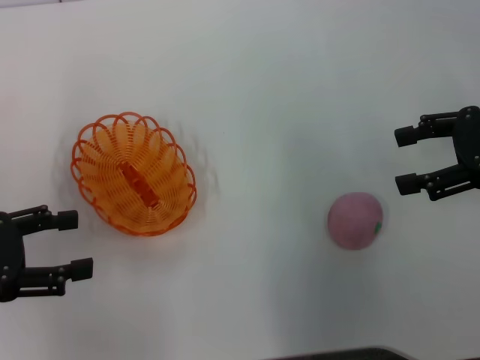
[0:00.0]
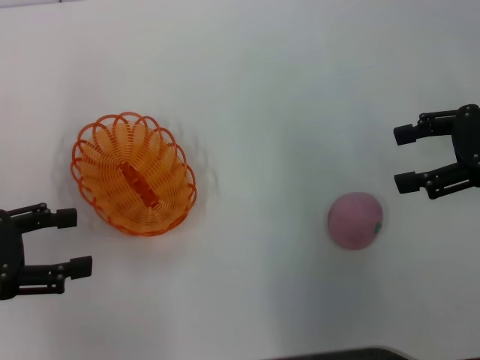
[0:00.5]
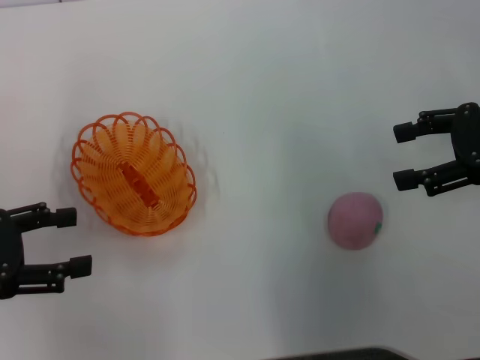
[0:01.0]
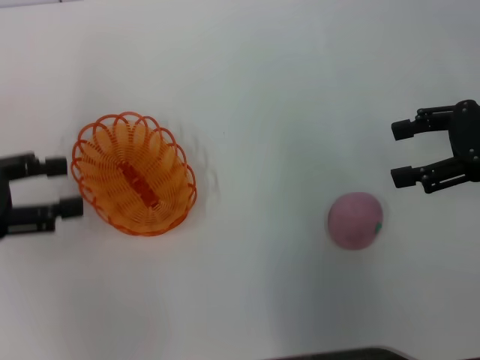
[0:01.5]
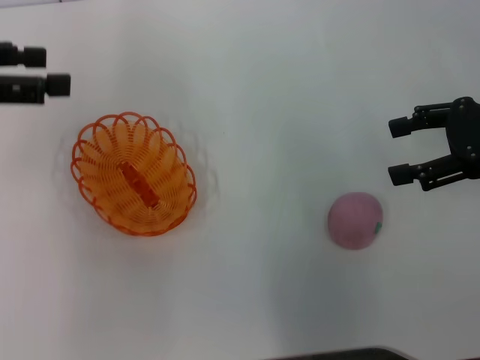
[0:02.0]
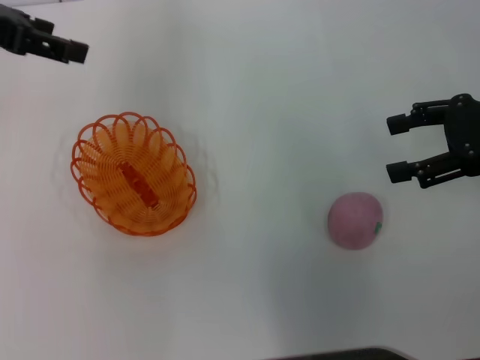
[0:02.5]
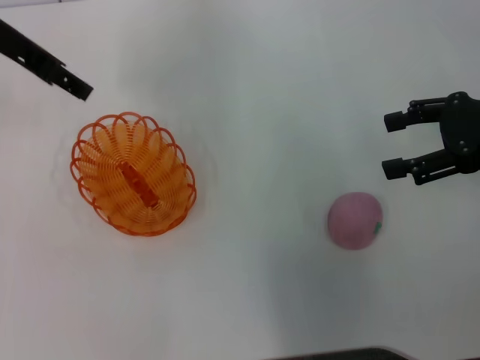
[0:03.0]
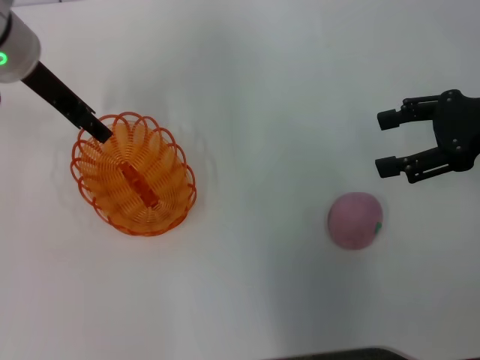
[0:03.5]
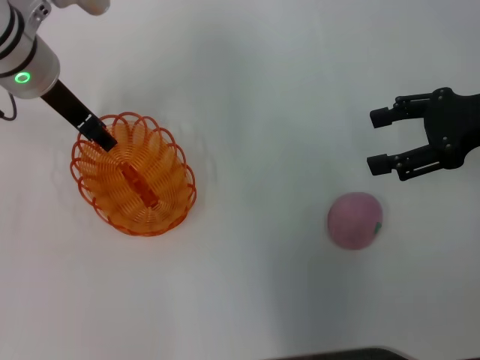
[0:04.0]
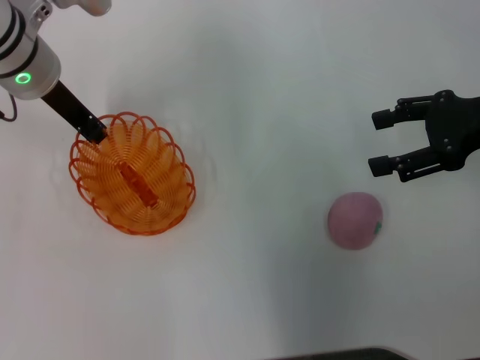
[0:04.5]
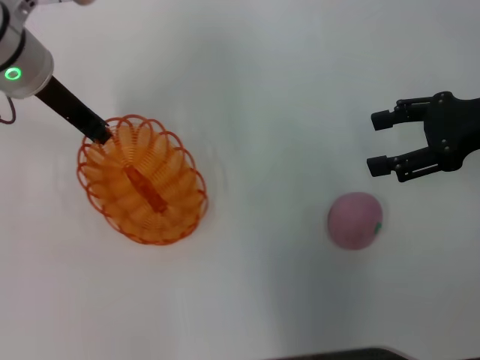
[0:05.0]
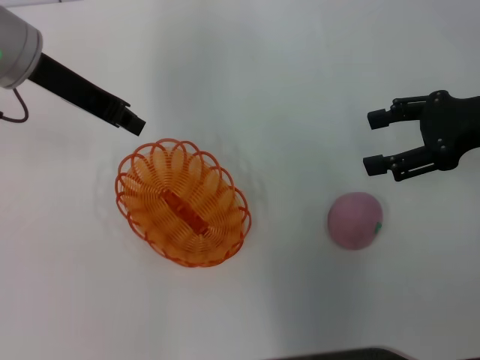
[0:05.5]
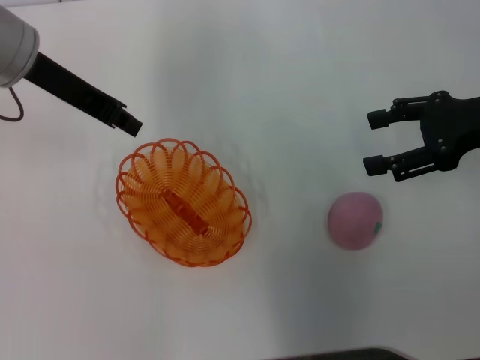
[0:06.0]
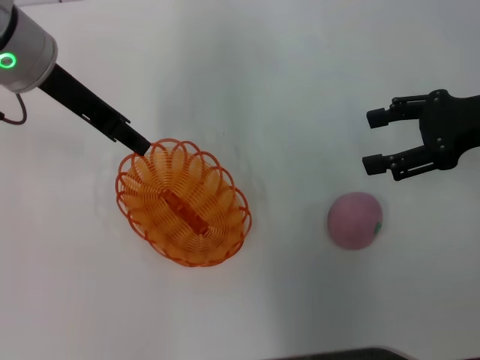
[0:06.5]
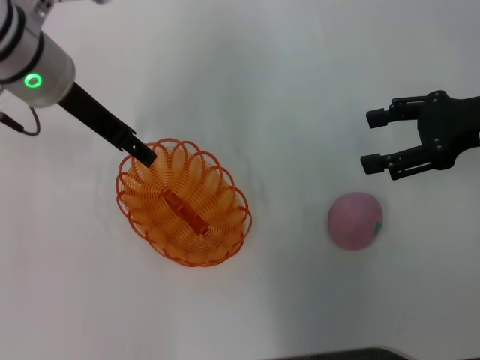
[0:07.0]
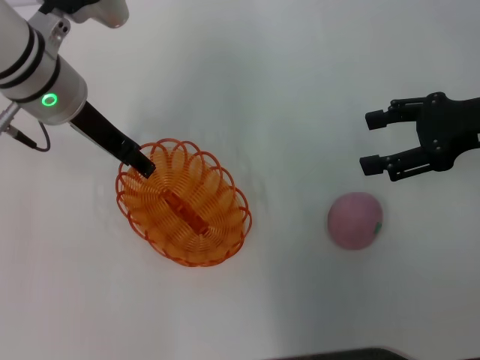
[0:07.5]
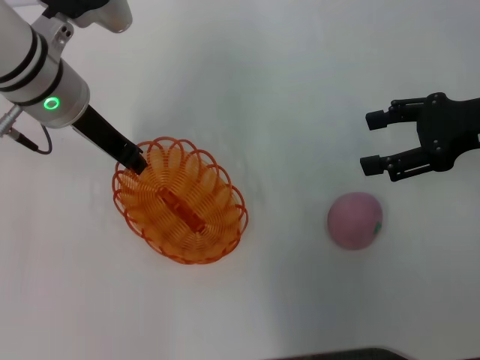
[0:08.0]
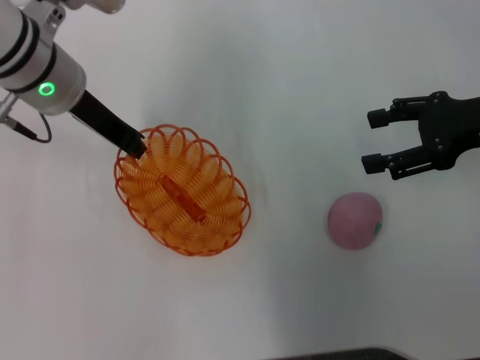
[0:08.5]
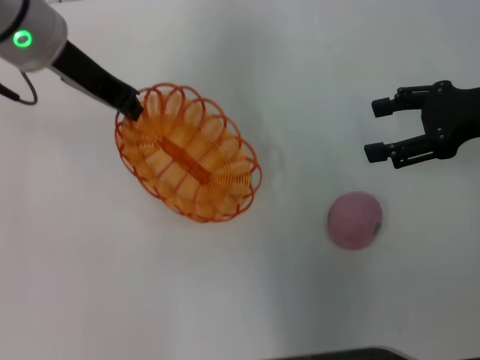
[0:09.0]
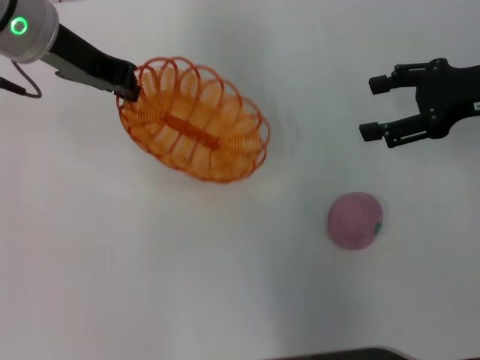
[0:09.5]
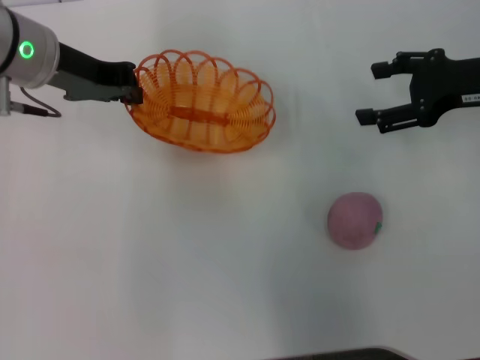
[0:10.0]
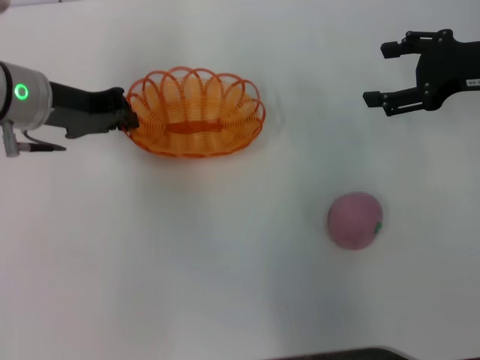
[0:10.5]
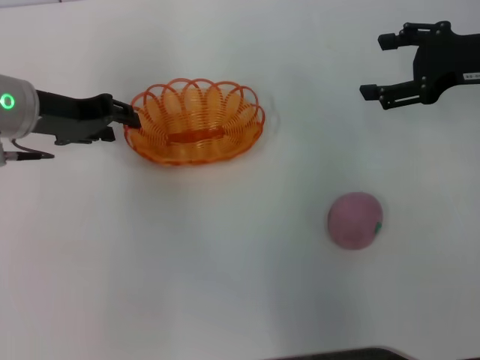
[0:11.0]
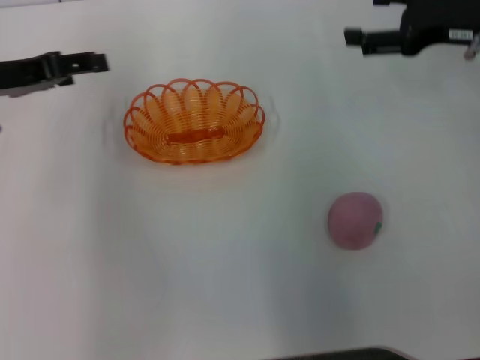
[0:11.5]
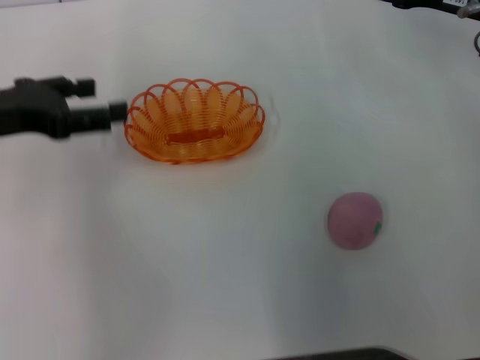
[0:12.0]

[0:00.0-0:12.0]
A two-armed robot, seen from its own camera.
Step, 0:00.0 to 0:08.5: Pick up the basket with the left gripper.
Step, 0:09.0 to 0:11.0: Place the basket in the center of view with the left gripper.
0:00.0 to 0:02.0: The left gripper shifts some 15 cm upward and forward.
0:02.0 to 0:04.0: The left gripper is displaced to the right, forward and downward by about 20 cm.
0:04.0 to 0:06.0: The left gripper moves some 5 cm, and closes its fingers.
0:06.0 to 0:08.0: The left gripper travels downward by some 5 cm, and opens its fingers.
0:08.0 to 0:10.0: The left gripper closes.
0:10.0 to 0:12.0: The left gripper moves to the left and backward, roughly 10 cm, and opens up.

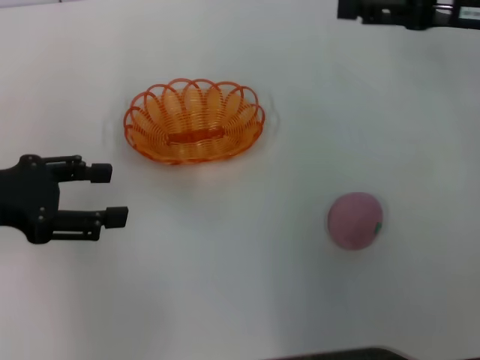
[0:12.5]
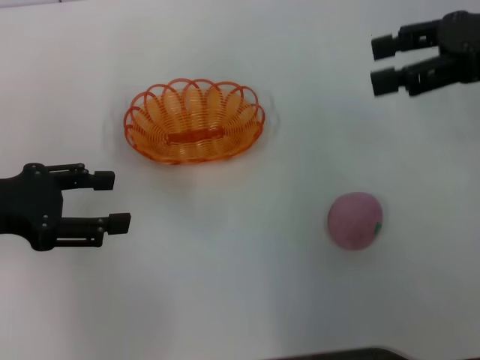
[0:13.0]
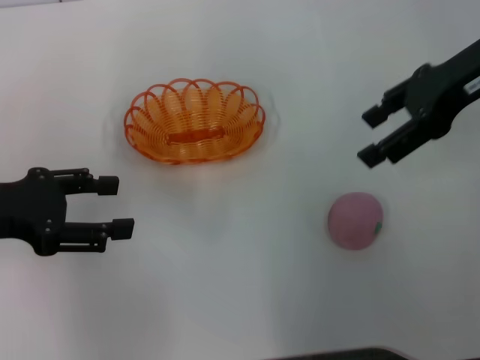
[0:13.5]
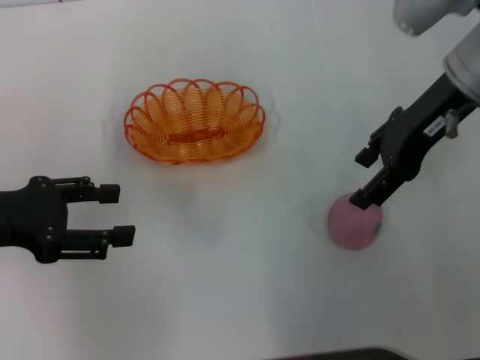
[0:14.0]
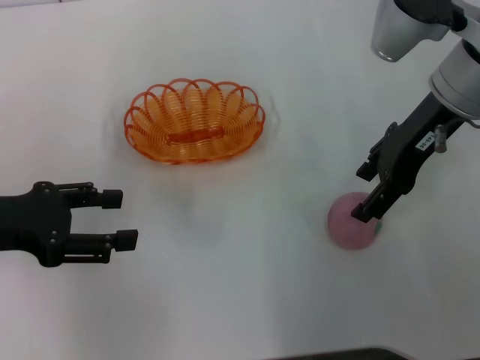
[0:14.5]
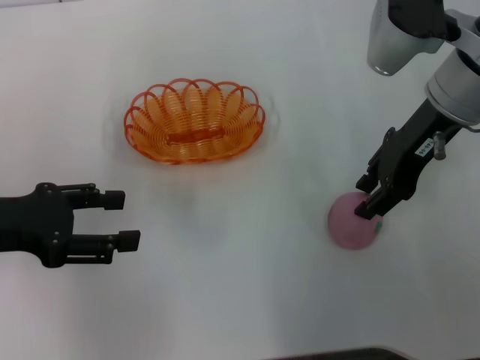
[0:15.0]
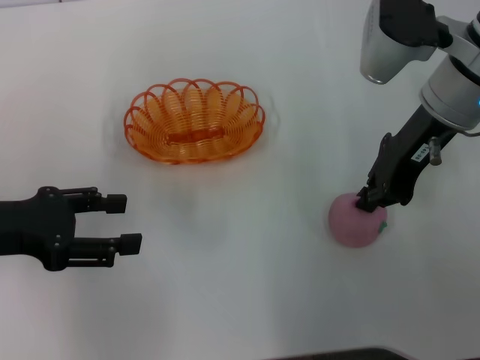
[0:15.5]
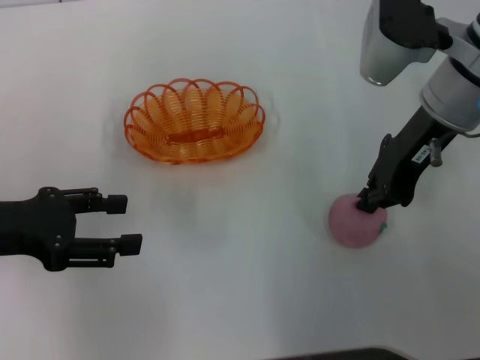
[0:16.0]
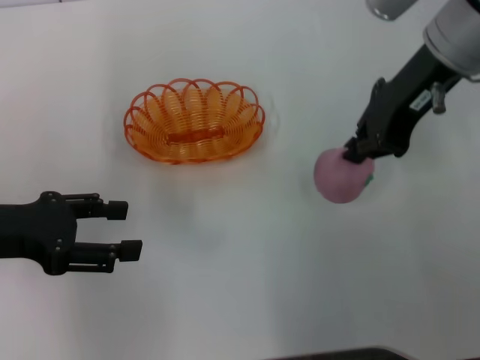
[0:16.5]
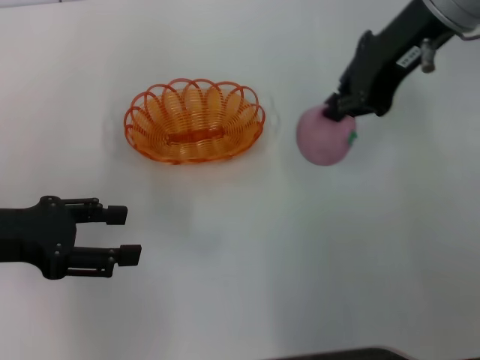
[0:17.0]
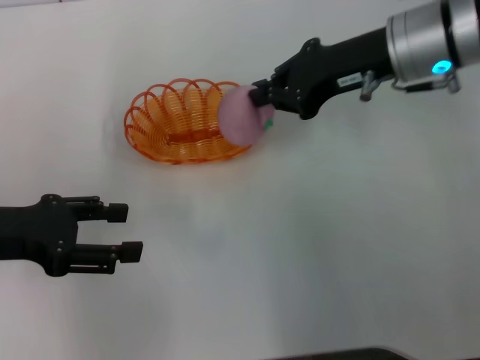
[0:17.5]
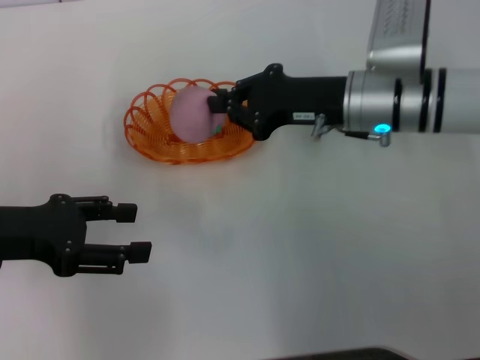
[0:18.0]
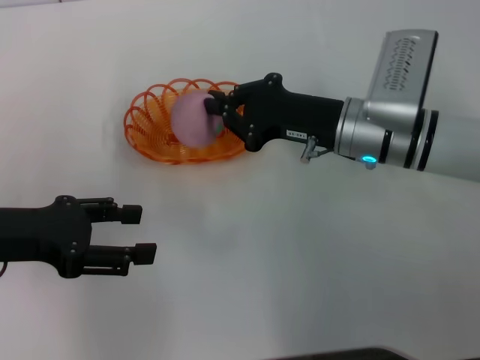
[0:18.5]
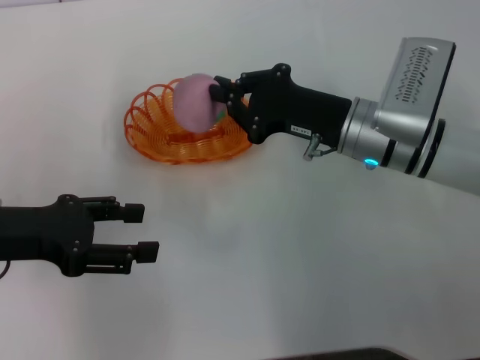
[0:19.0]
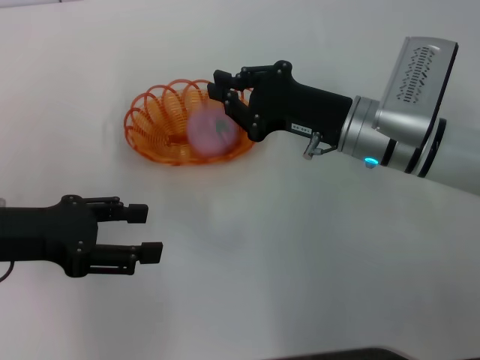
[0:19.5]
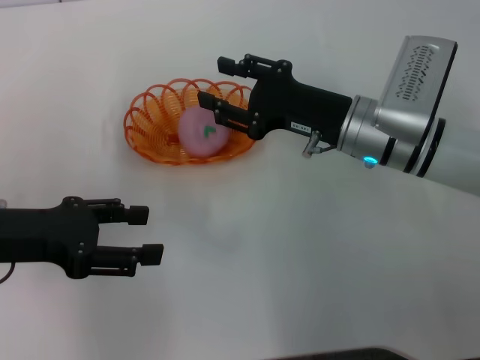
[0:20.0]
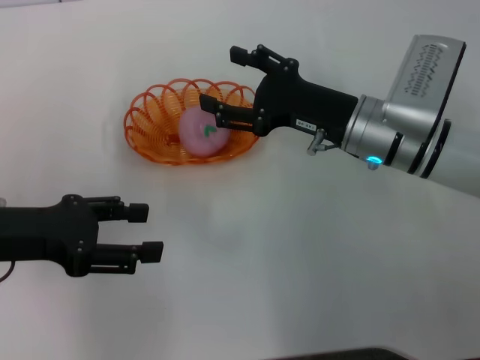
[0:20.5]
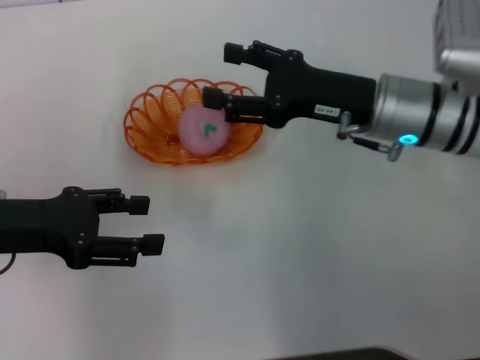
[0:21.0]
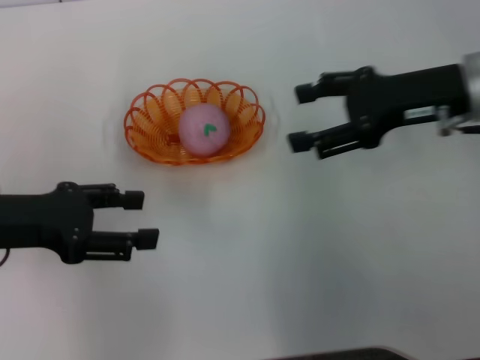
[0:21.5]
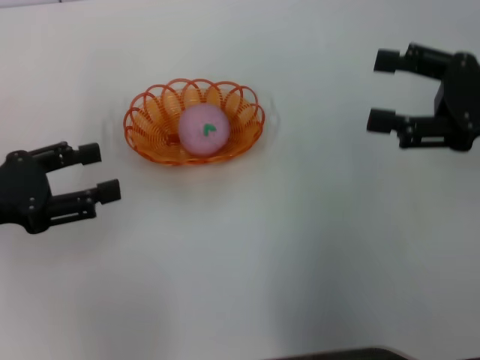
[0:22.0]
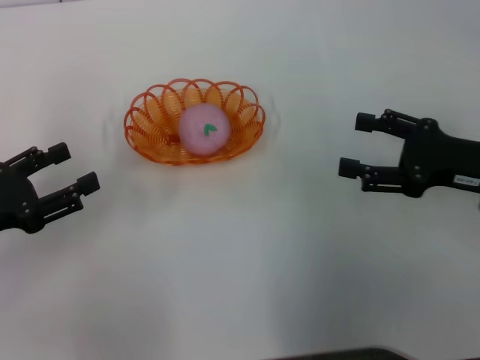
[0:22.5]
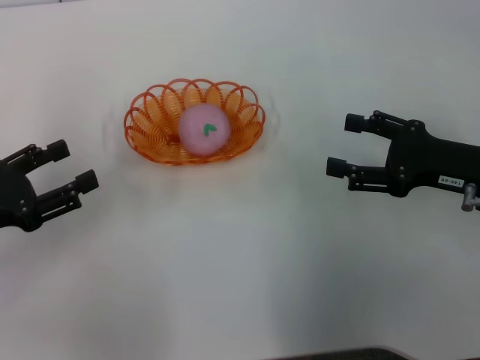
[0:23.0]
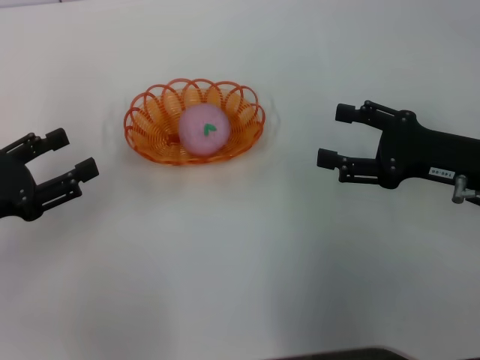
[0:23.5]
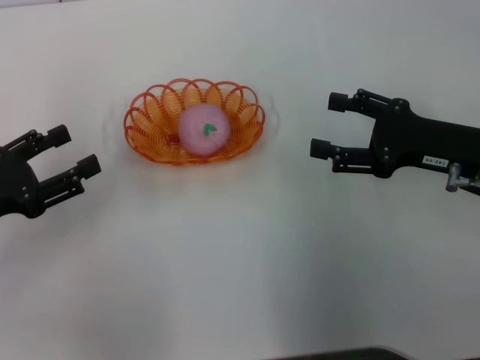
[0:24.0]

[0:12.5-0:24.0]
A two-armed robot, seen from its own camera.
Step, 0:12.5 to 0:16.5: Pick up the peach with the right gripper.
Step, 0:17.0 to 0:21.0: Place the peach into the basket with the right gripper.
0:12.5 to 0:14.5: The right gripper is displaced to the left by roughly 10 cm.
0:14.5 to 0:16.5: The right gripper closes up.
0:16.5 to 0:18.5: The right gripper heads downward, covering some 15 cm.
0:18.5 to 0:20.0: The right gripper opens.
0:20.0 to 0:22.0: The right gripper goes approximately 20 cm to the right, upward and backward, and opens.
0:22.0 to 0:24.0: The right gripper shifts about 5 cm downward.
